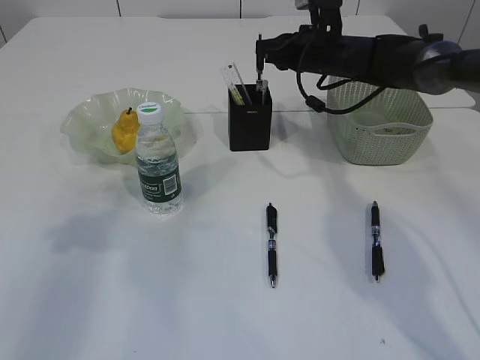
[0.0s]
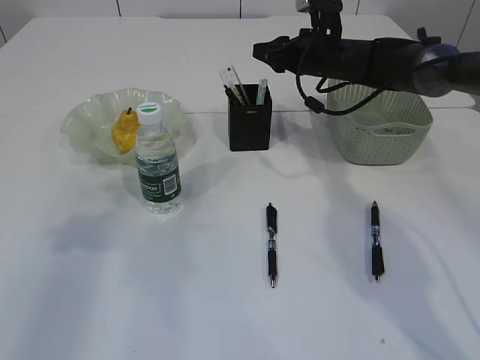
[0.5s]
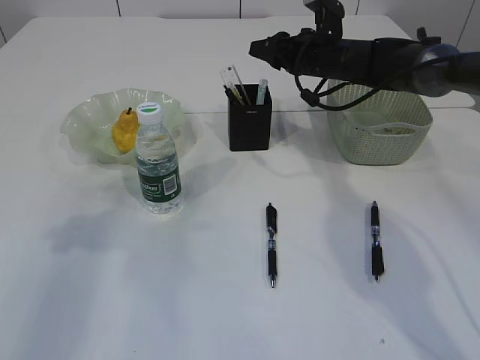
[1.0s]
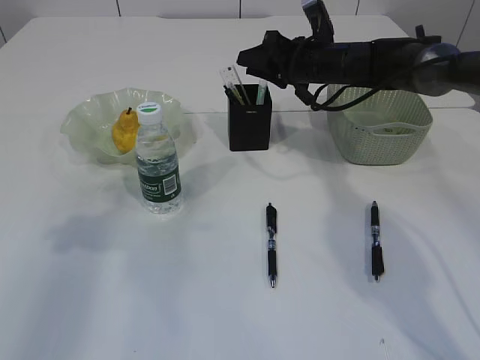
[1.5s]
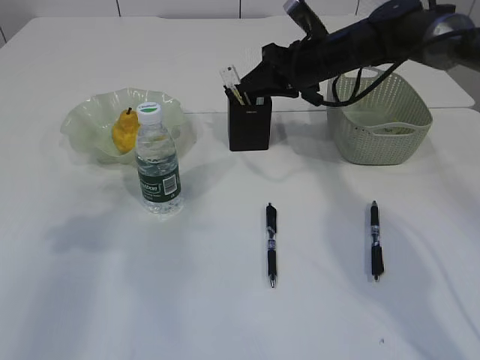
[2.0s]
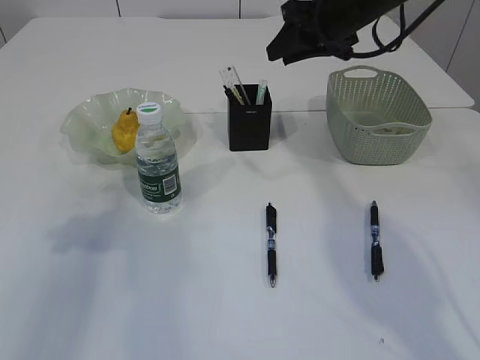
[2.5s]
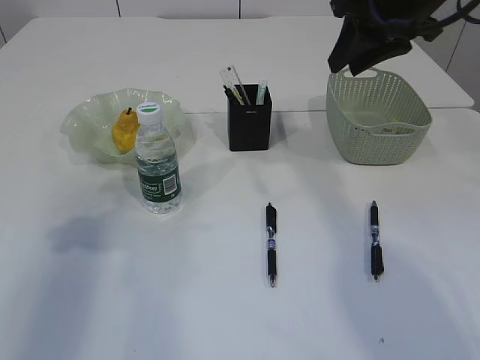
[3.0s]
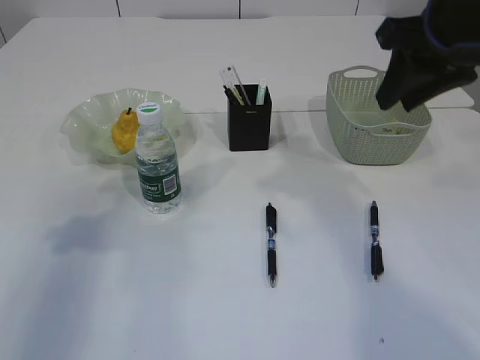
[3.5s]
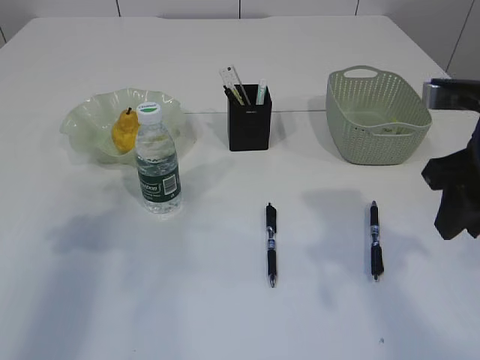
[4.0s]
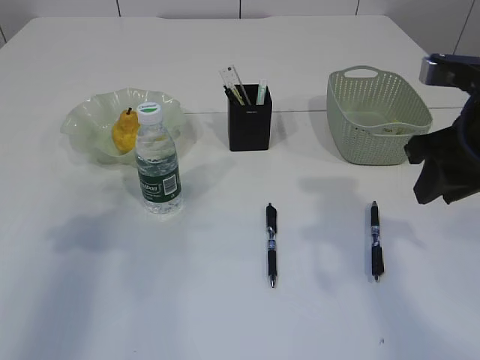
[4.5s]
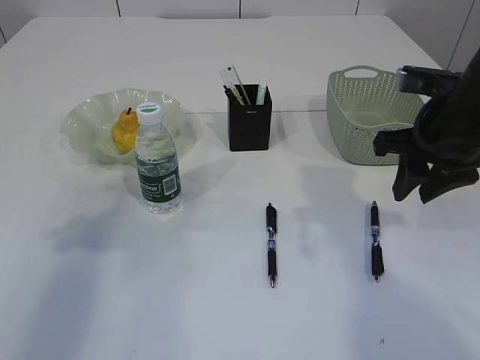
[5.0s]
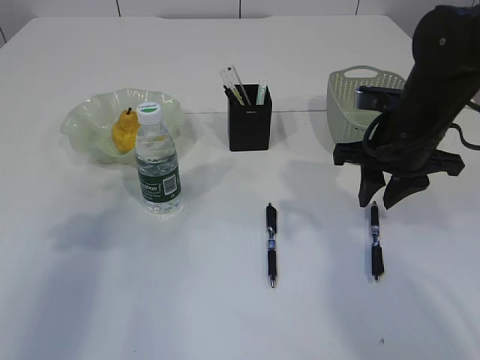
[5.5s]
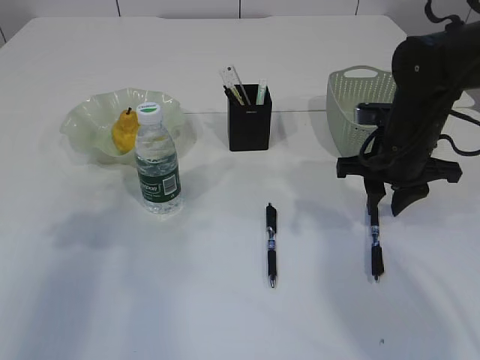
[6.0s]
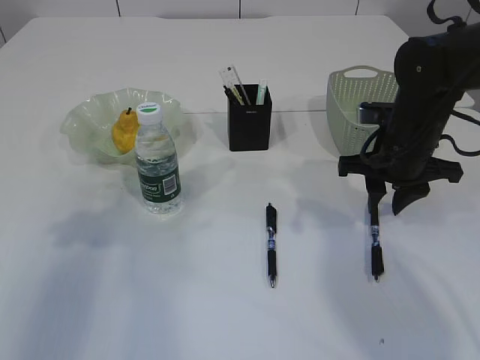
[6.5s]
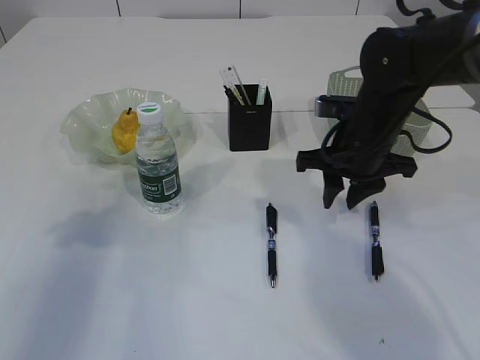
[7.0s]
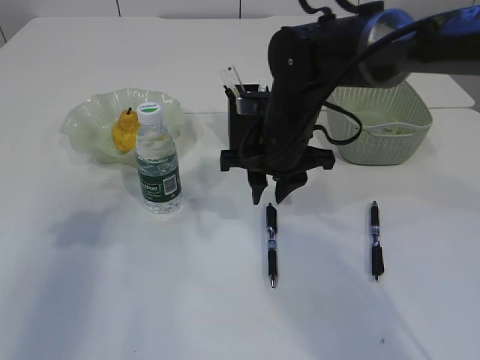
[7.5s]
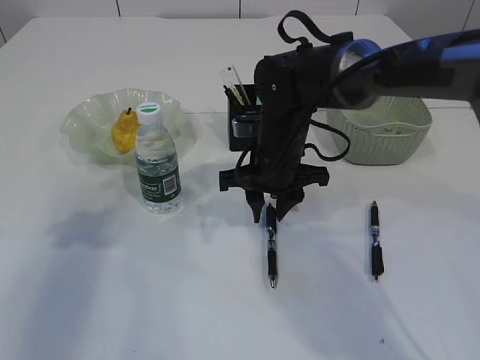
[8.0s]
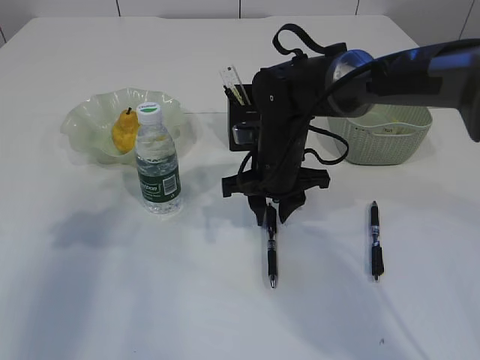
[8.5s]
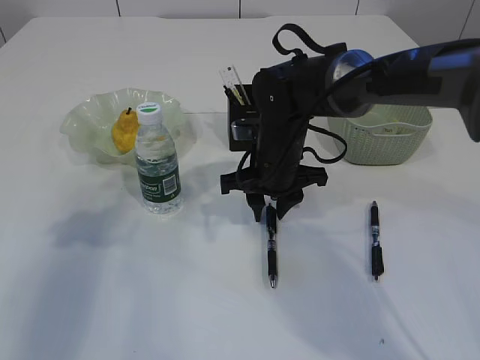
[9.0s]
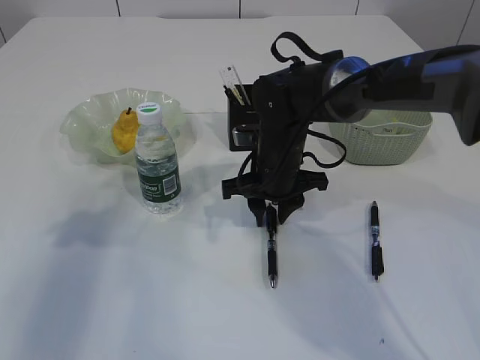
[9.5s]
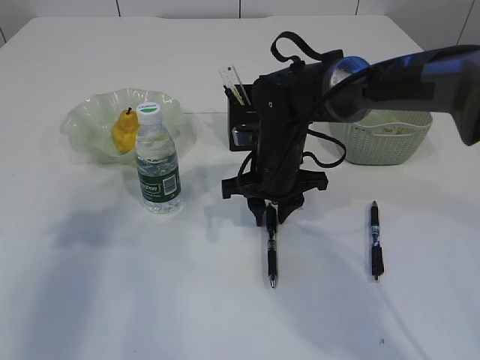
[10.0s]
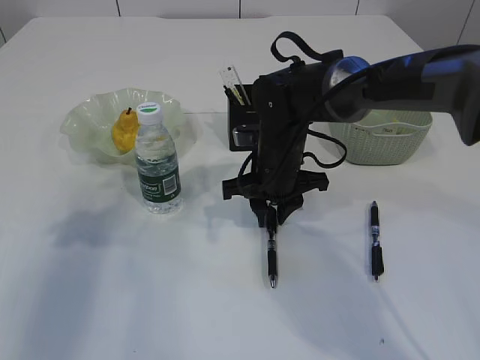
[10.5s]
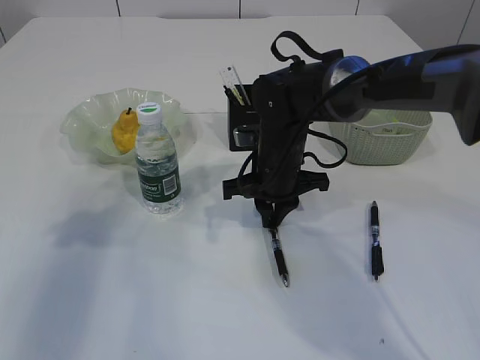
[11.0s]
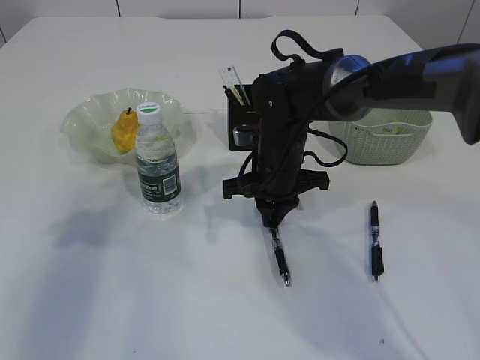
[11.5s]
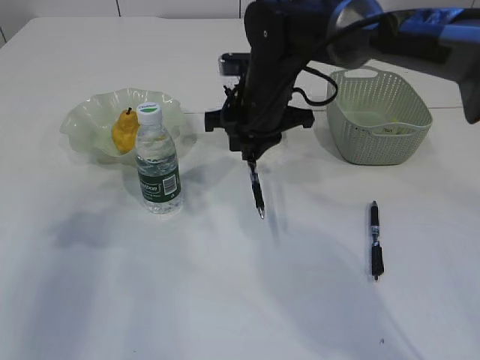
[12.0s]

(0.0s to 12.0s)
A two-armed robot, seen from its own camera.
Step, 0.0s - 3.5s: Place the pen into the pen holder.
0.0s - 2.0s: The right gripper opens up.
2.0s - 4.0s: The right gripper moves backward, roughly 25 cm.
4.0s - 6.0s: The right gripper is displaced forward and downward by approximately 15 cm.
6.0s - 8.0s: The right gripper heads to the left, covering some 15 cm.
8.0s - 10.0s: The grippers move only a little.
10.0s - 12.0s: The right gripper travels upward by roughly 10 cm, and closes.

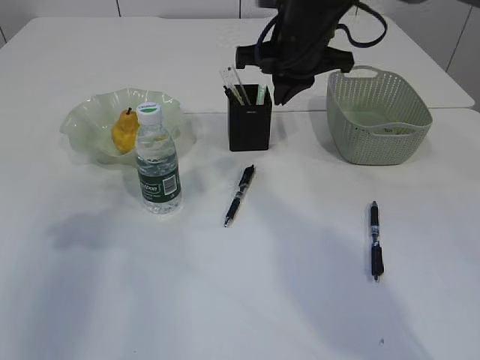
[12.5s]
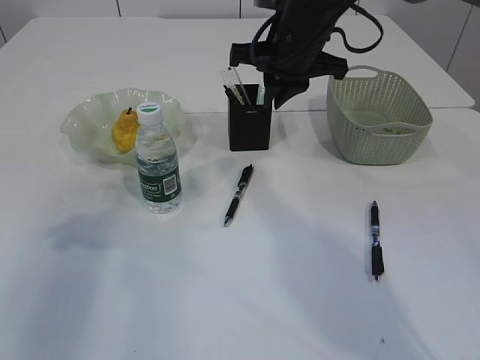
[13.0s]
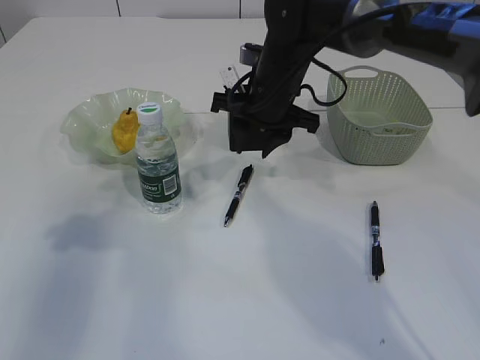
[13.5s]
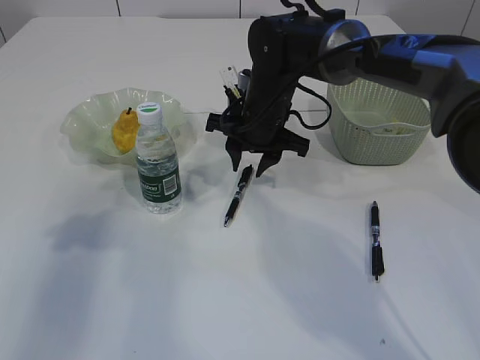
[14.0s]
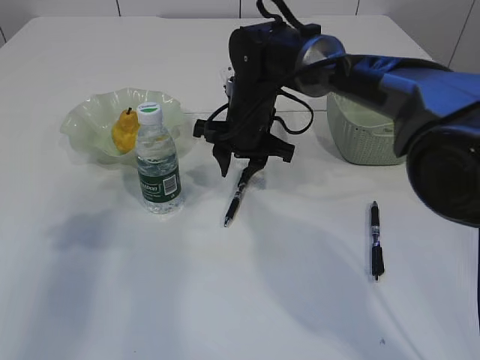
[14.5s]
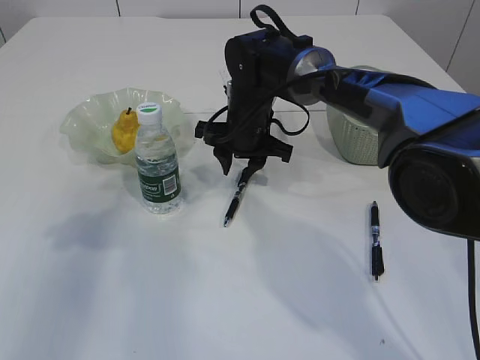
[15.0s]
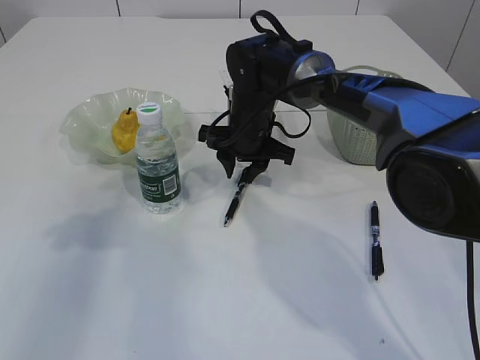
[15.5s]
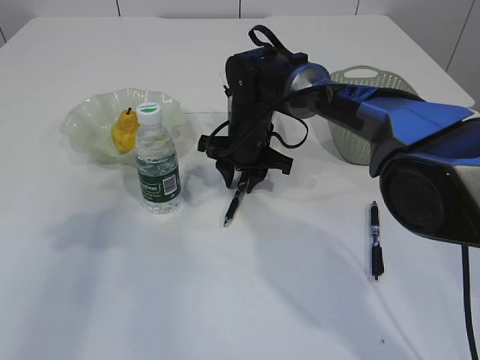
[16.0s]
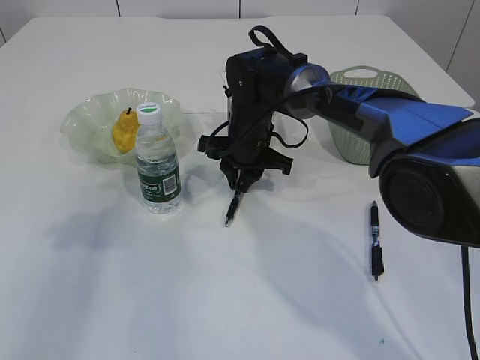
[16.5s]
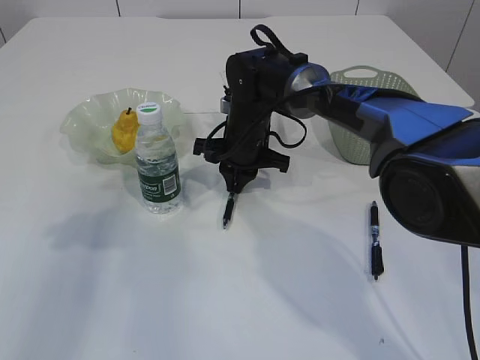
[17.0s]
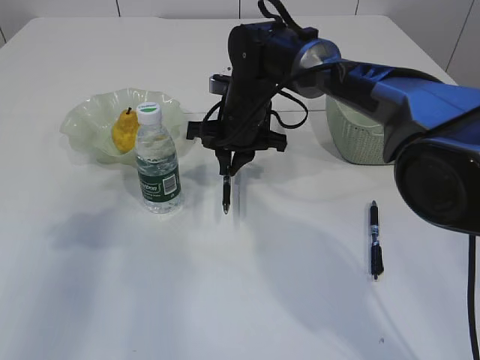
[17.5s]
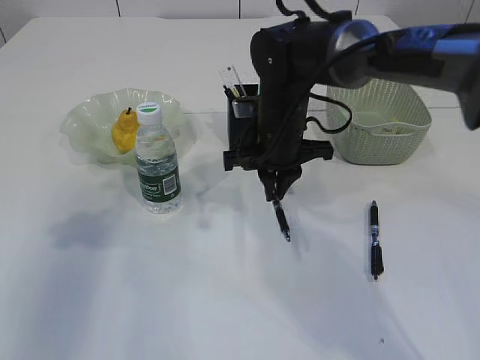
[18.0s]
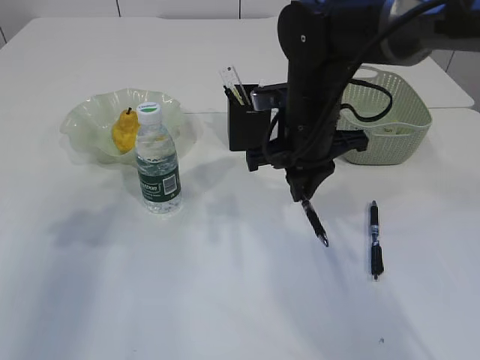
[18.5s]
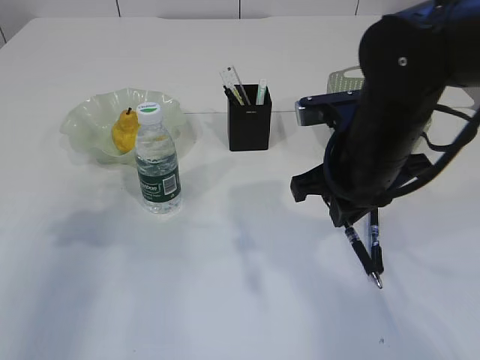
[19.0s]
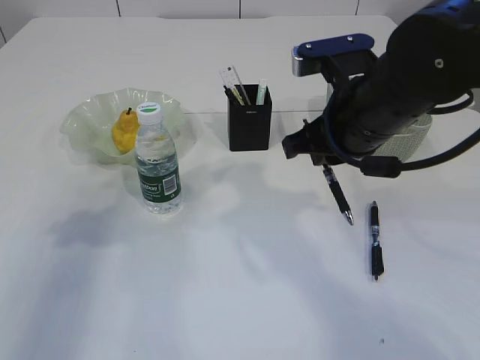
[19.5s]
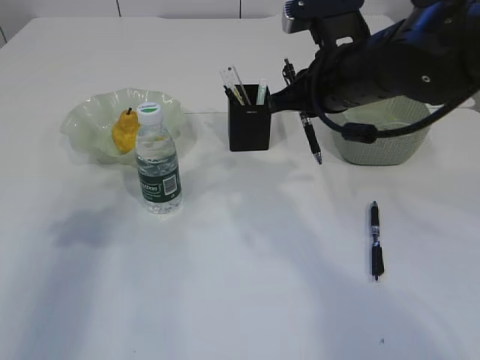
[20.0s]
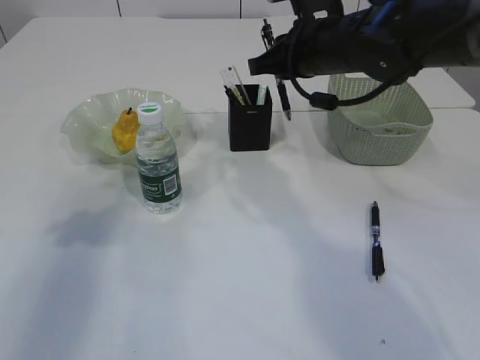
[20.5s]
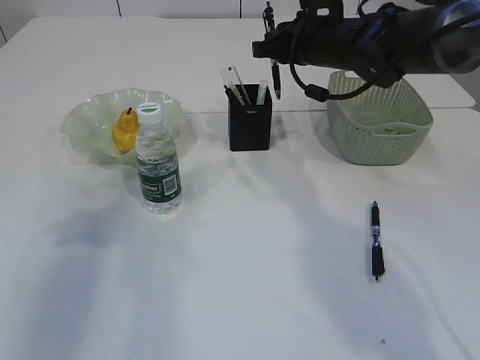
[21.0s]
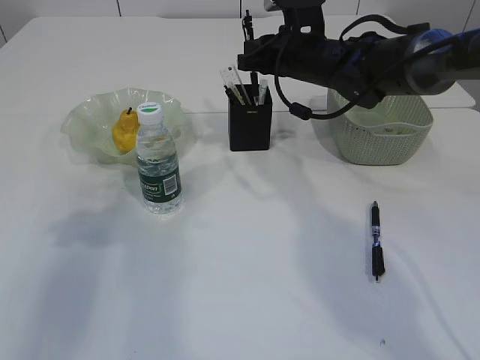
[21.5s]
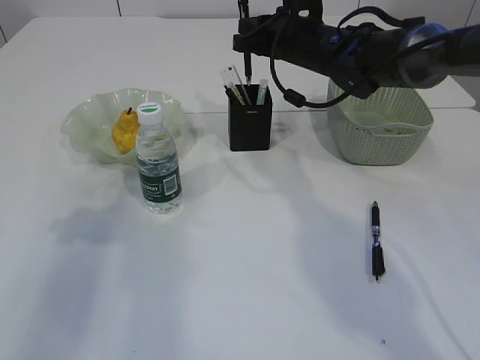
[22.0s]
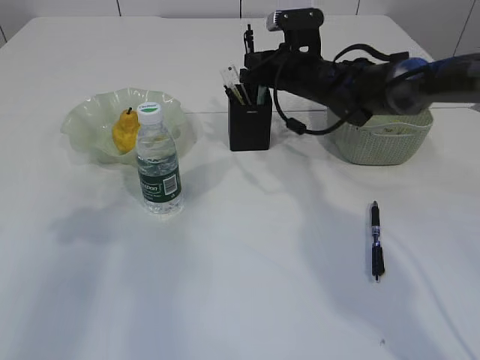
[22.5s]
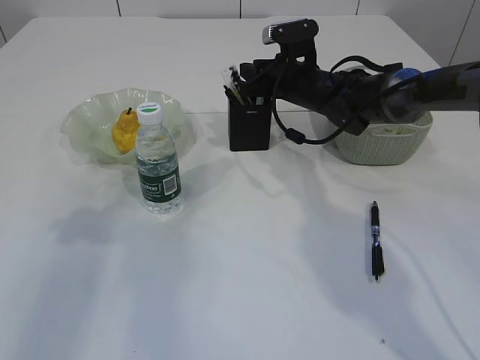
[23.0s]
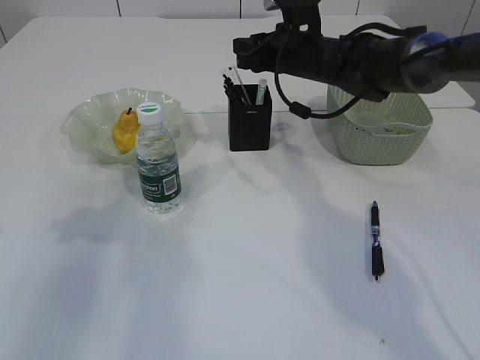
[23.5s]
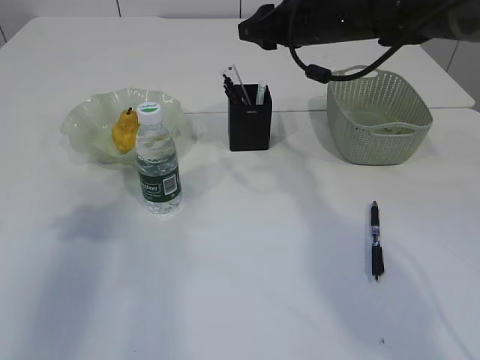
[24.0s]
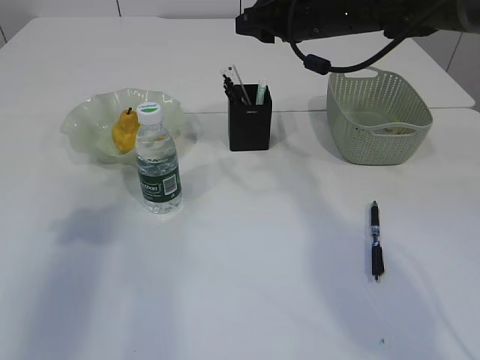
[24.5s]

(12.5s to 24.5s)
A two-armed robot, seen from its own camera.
Step, 12.5s - 17.5s: Pick up the pen with right arm.
Step, 18.0s - 23.5s: Place the pen into the pen holder.
12.5s - 14.5s: The right gripper travels downward and to the left by some 15 cm, and opens up.
14.5s - 16.5s: The grippers move only a little.
16.5s - 18.5s: The right gripper travels backward, upward and to the right by roughly 15 cm.
18.5s - 20.5s: The right gripper moves upward, about 5 cm.
20.5s - 22.5s: The right gripper goes about 10 cm forward and downward.
22.5s - 24.5s: The right gripper moves upward, about 10 cm, and opens.

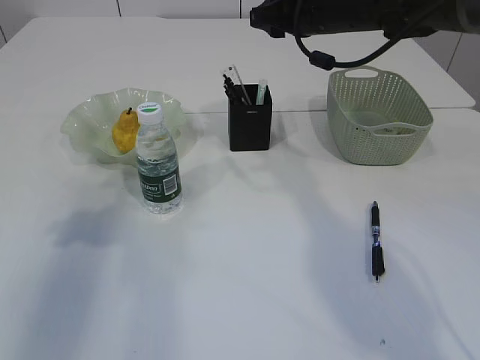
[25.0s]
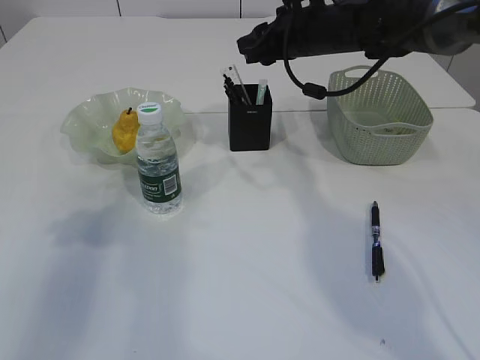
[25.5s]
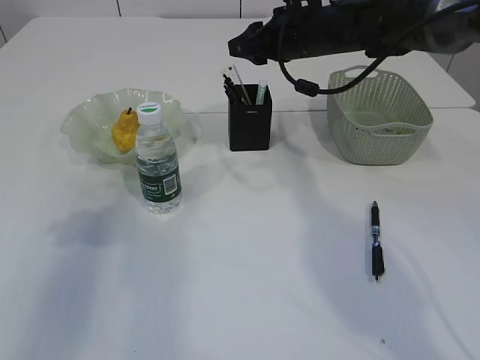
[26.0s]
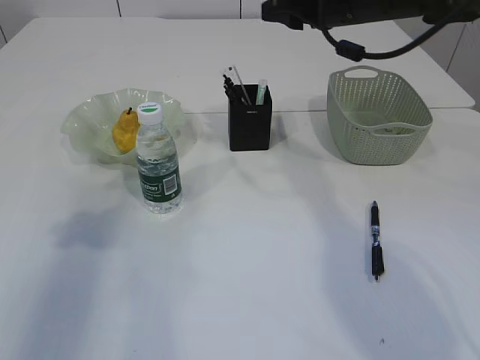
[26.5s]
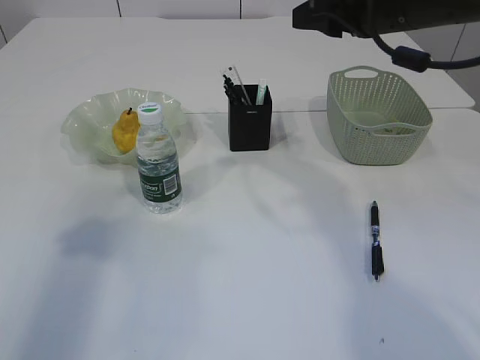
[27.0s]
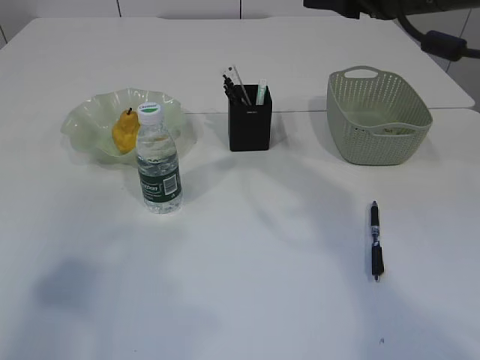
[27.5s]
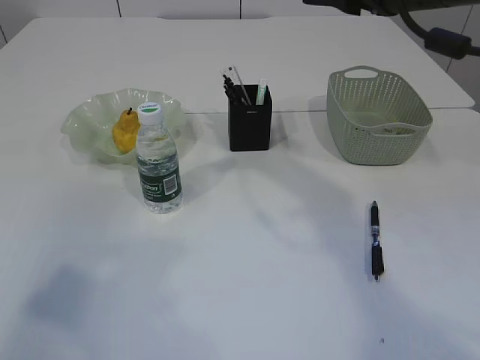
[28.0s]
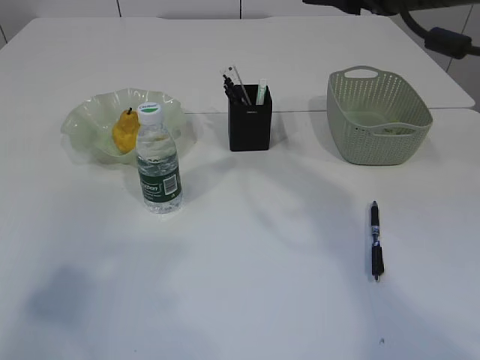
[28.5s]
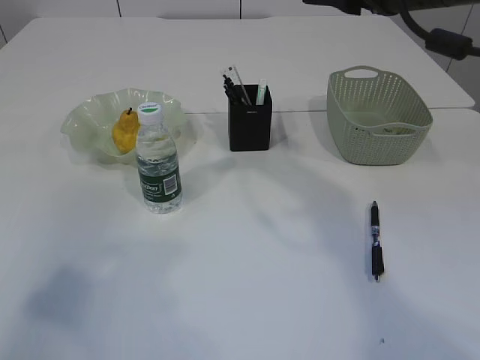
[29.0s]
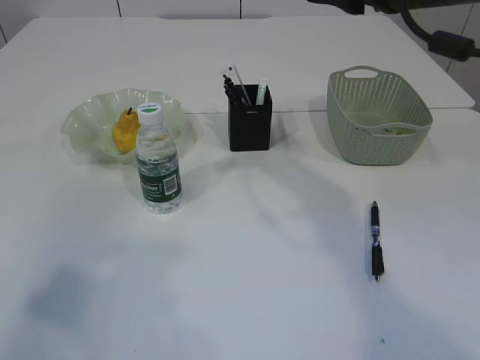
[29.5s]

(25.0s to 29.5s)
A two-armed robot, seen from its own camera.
25.0s - 27.0s: The right gripper heads backward, covering roughly 10 cm. The left gripper moves about 5 cm.
27.0s - 29.5s: The left gripper is displaced backward by about 10 cm.
